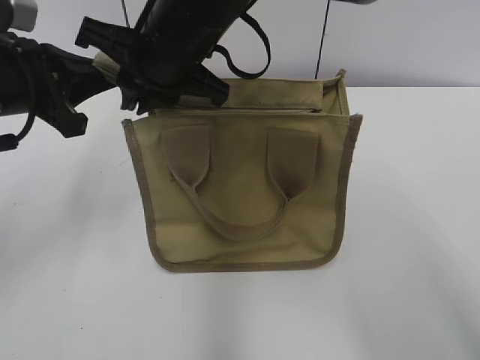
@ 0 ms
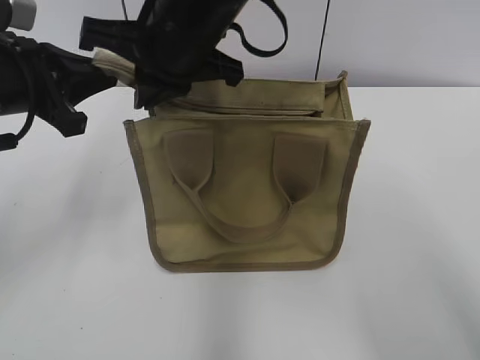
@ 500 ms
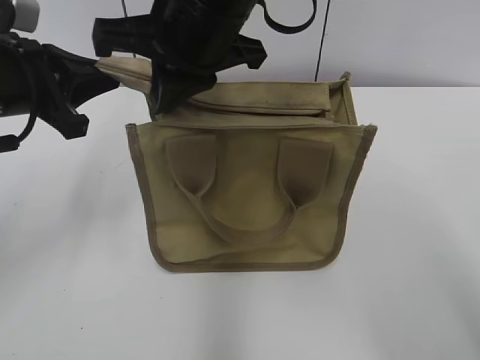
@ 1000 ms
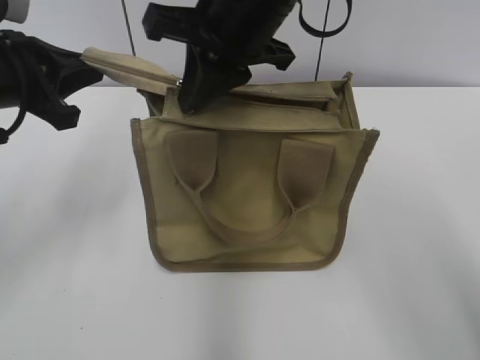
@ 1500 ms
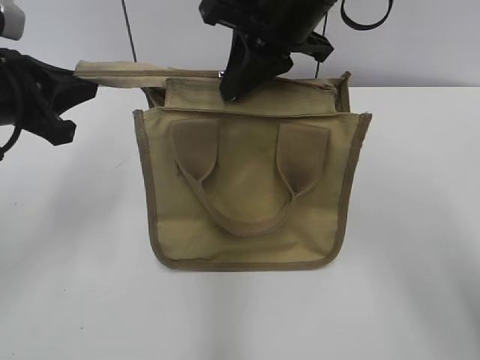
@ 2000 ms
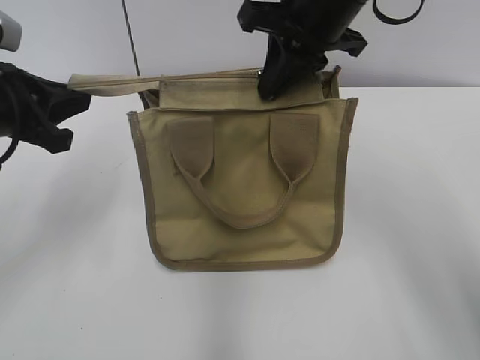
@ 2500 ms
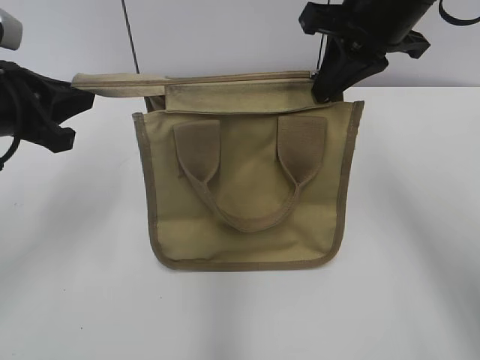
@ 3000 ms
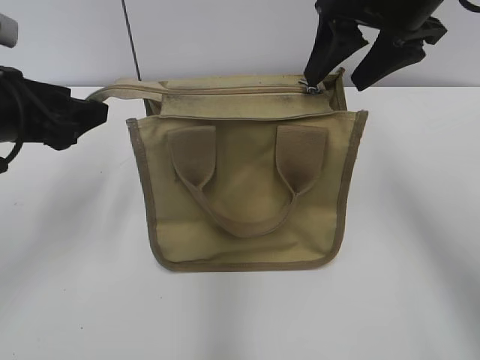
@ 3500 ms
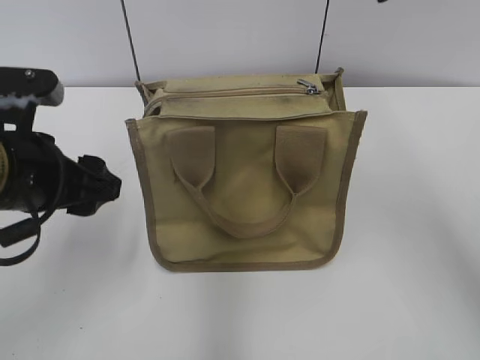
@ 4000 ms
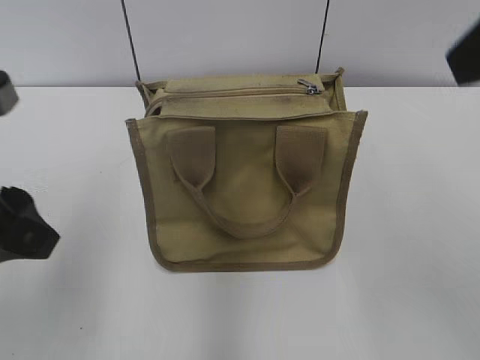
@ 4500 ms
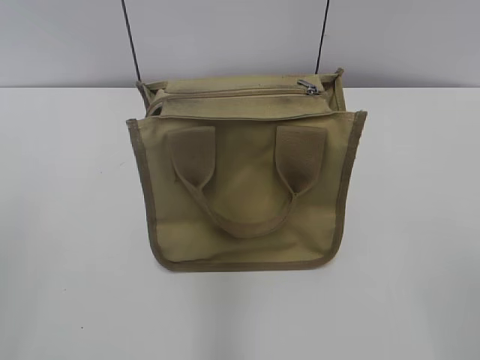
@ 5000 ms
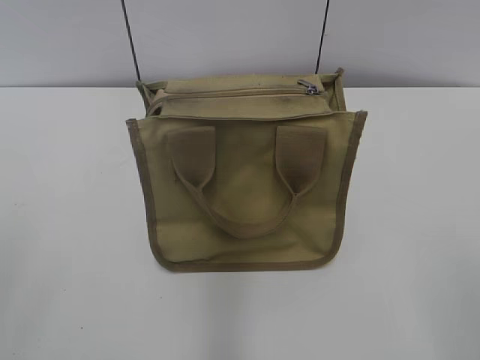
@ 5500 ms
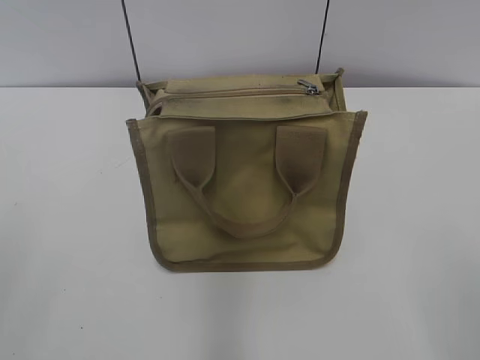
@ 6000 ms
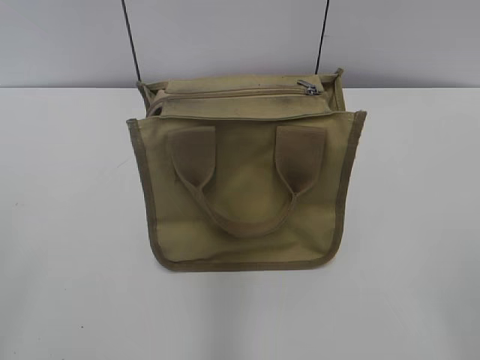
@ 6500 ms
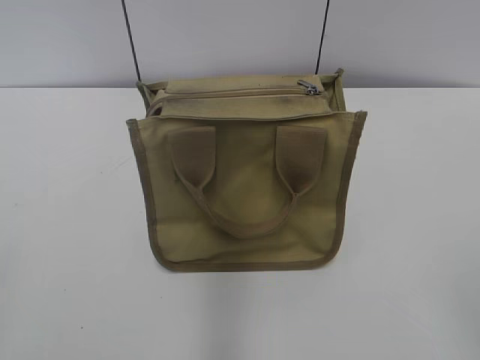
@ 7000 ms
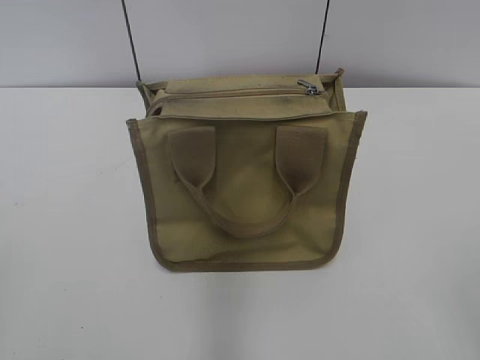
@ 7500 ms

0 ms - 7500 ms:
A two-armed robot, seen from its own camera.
Step, 0 ms - 3000 ms: Zip up the bag with your right hand.
0 ms - 2000 ms: The right gripper heads to the right, covering roughly 10 cm.
2000 ms - 4000 ms: The right gripper is displaced upward, to the right and backward by approximately 15 cm, and opens; the left gripper travels backward by some 5 cm, and opens.
4000 ms - 5500 ms: The right gripper shifts roughly 30 cm backward and downward; the left gripper is displaced backward and to the left by some 20 cm.
